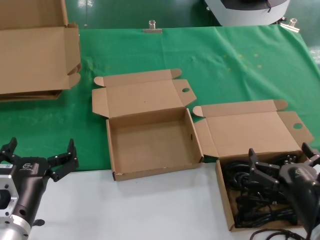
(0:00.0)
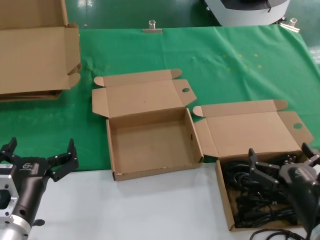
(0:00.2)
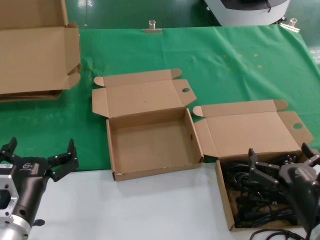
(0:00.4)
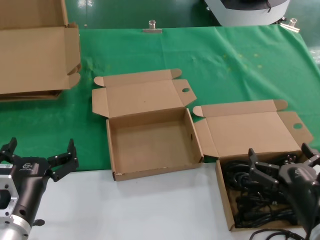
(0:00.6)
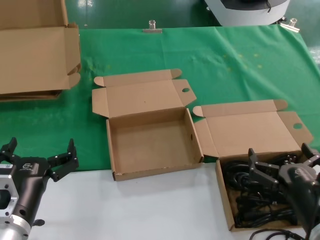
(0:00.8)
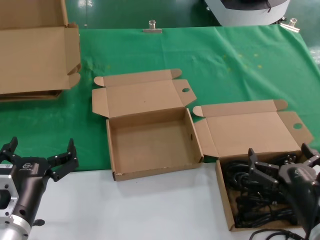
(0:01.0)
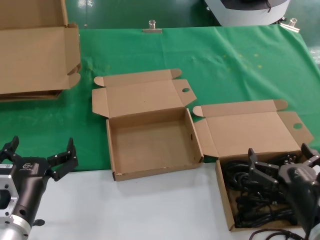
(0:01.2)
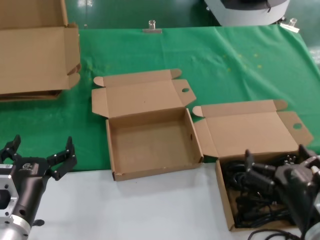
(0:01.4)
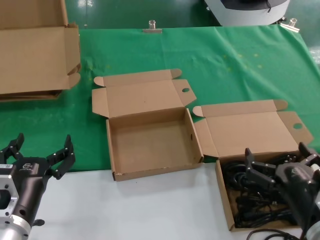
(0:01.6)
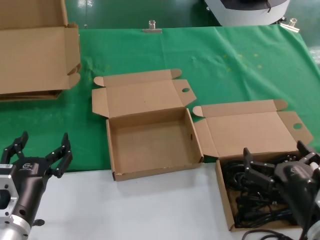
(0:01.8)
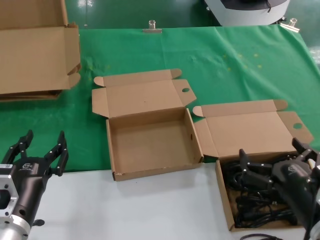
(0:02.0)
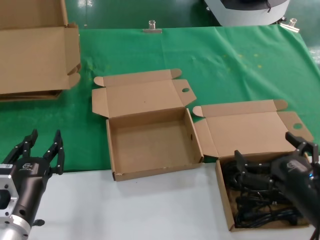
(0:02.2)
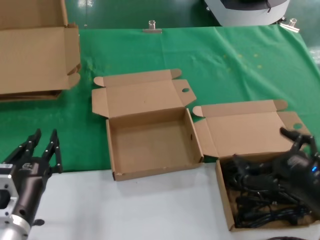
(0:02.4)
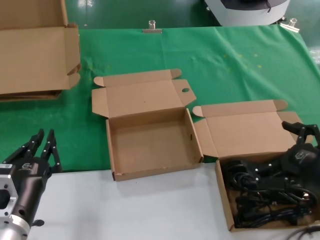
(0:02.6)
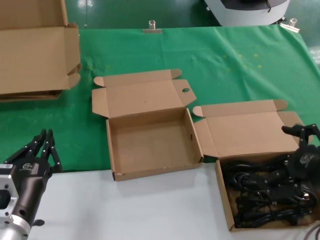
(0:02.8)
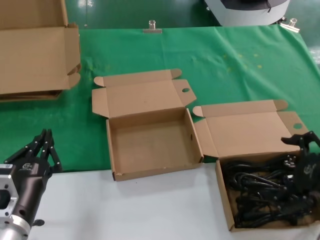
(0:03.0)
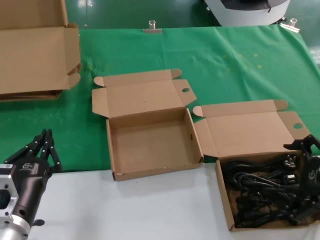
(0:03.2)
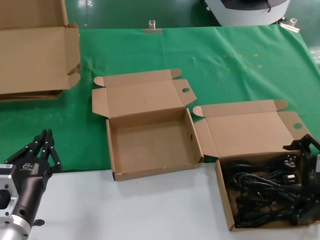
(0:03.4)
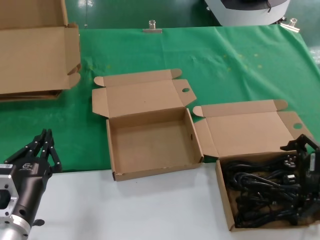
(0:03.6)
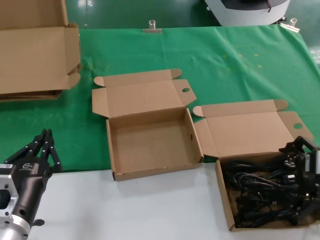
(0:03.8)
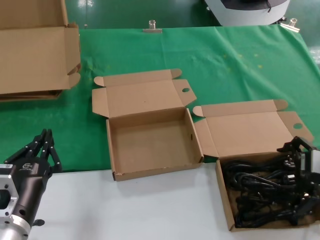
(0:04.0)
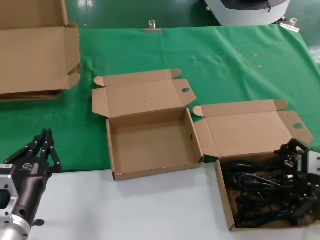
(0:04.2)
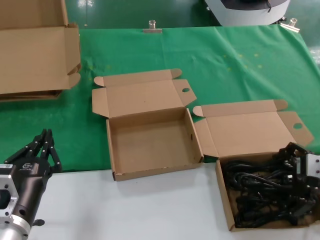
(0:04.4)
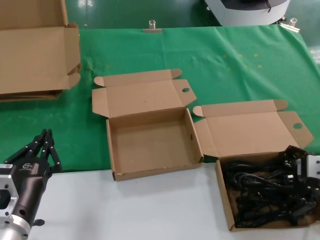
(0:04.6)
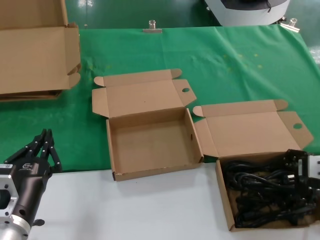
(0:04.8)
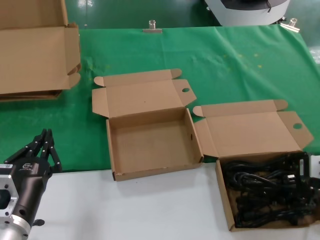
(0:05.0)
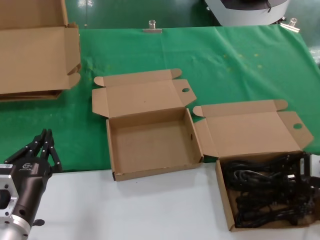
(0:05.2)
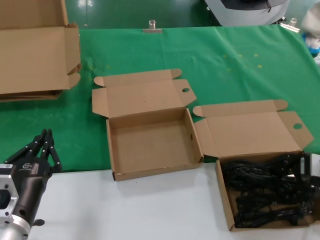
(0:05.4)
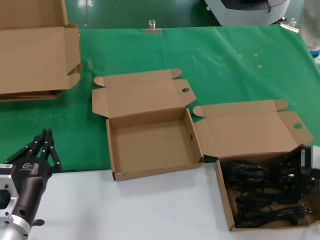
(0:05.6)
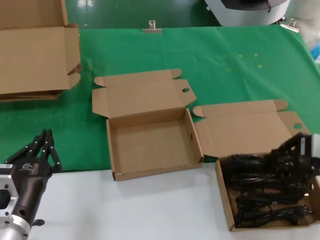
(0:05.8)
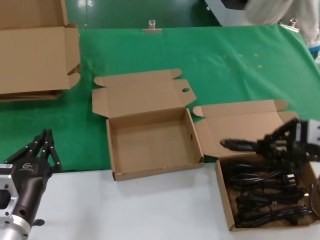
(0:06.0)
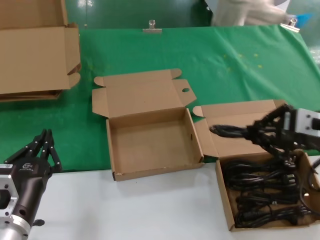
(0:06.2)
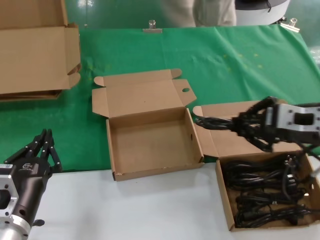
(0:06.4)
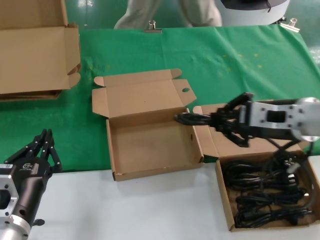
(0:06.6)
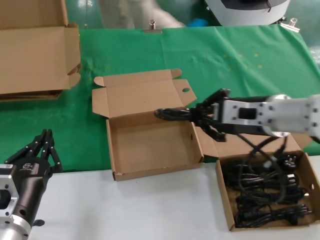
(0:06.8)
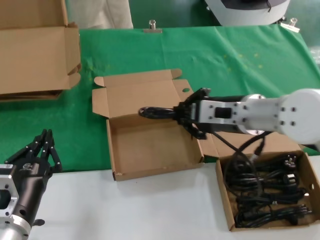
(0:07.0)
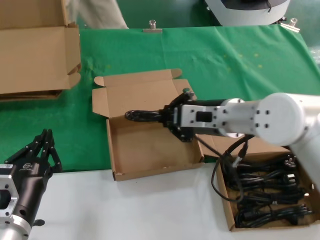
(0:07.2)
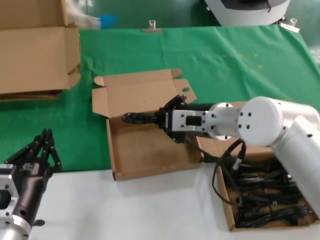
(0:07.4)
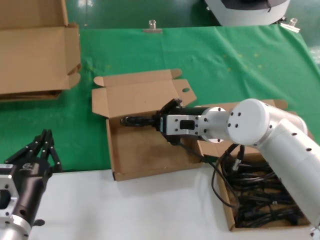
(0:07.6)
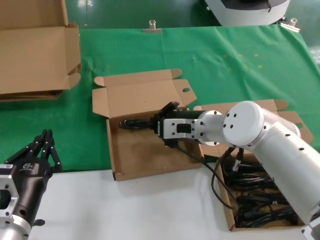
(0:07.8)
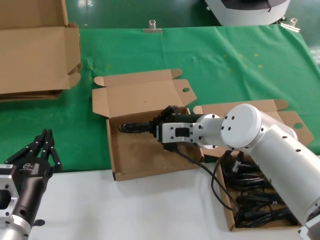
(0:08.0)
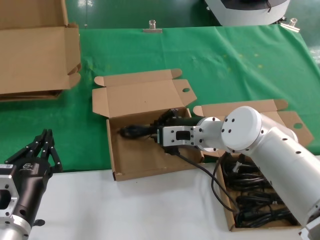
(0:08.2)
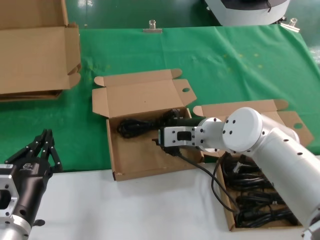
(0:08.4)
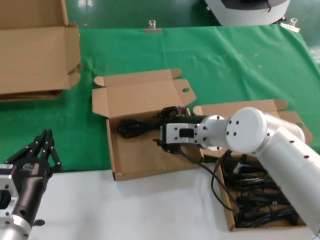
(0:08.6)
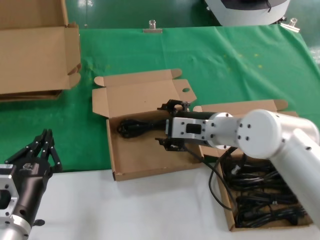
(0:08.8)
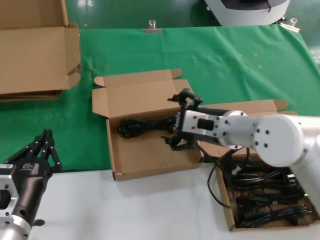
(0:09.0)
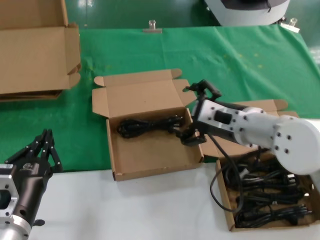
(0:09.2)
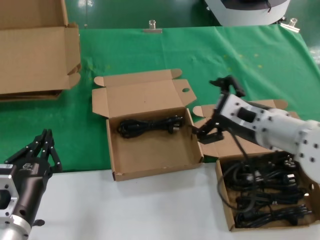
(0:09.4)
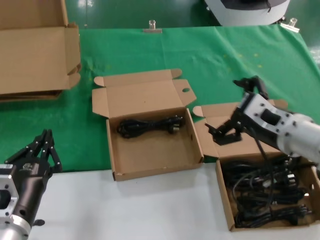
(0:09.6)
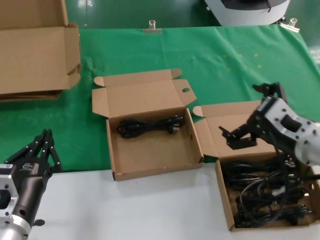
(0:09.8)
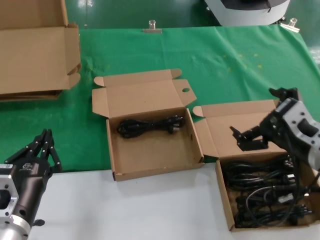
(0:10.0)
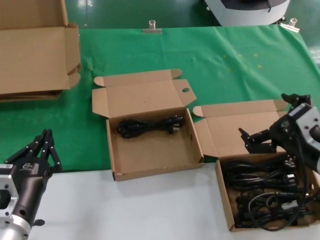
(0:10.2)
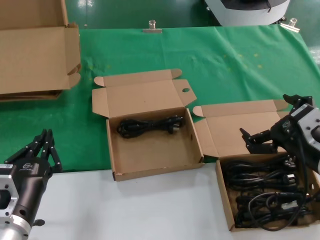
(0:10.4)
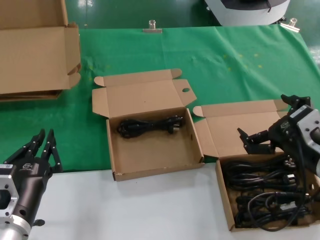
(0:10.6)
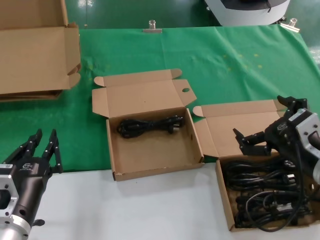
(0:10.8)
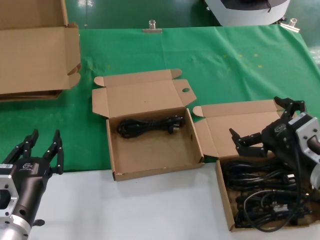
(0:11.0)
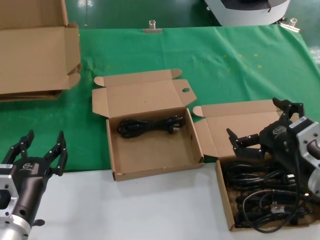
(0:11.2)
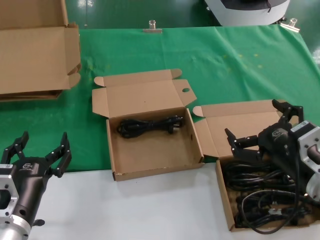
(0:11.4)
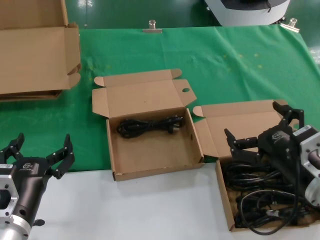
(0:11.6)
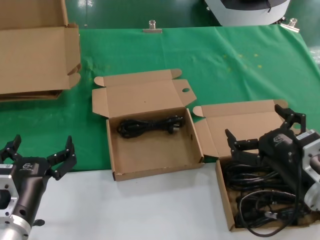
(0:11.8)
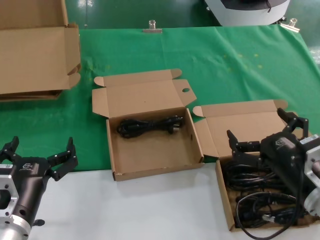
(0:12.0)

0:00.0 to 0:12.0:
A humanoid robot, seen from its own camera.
Task of the whole recording: take the parts from the box containing them and put them into an empty box.
Step, 0:00.0 to 0:05.2: Grasp the data cable.
Step, 0:05.4 to 0:08.4: Place the data cable in the another box.
0:00.0 to 0:01.6: The two hands keep their place.
0:01.6 to 0:03.0: The right hand moves upward and to the right, some 15 cm.
0:03.0 to 0:04.4: The right hand moves forward, roughly 10 cm.
0:04.4 to 0:06.0: The right hand heads upward, covering approximately 5 cm.
0:06.0 to 0:07.6: The right hand moves to the left and forward, some 25 cm.
0:07.6 to 0:09.0: The hands make only small movements.
0:09.0 to 0:10.4: The right hand travels to the right and backward by approximately 20 cm.
0:10.4 to 0:12.0: The right hand is displaced downward by some 5 cm.

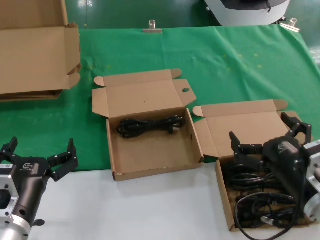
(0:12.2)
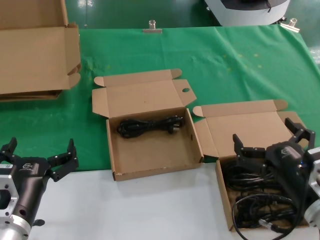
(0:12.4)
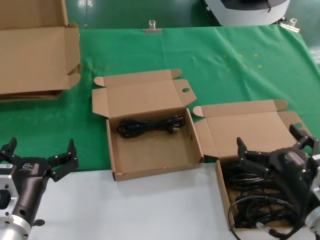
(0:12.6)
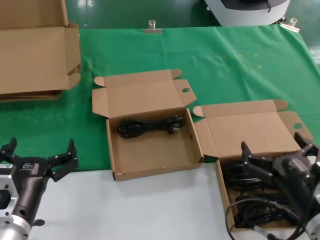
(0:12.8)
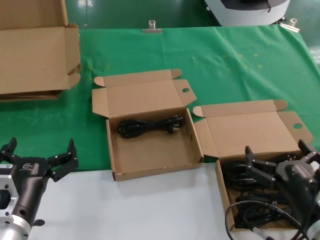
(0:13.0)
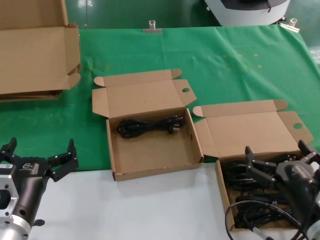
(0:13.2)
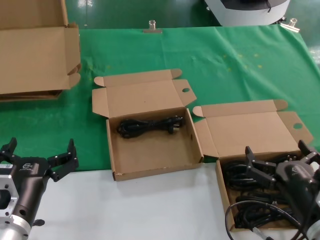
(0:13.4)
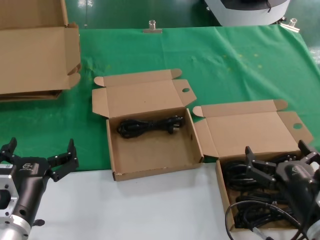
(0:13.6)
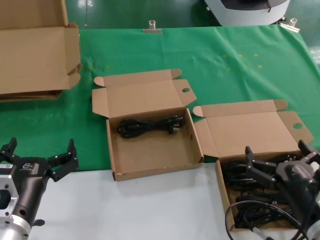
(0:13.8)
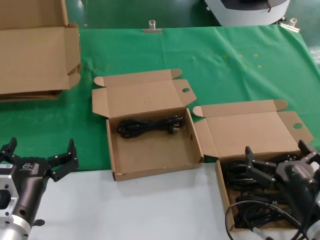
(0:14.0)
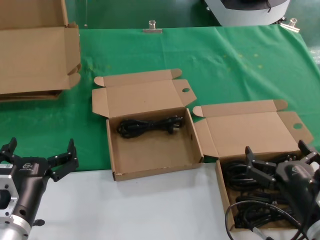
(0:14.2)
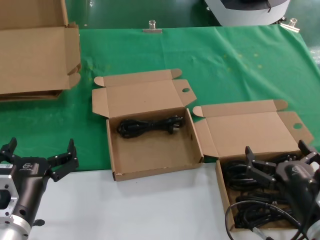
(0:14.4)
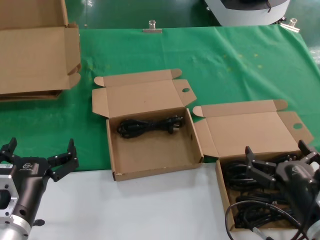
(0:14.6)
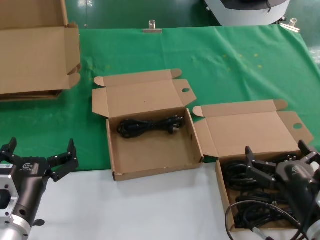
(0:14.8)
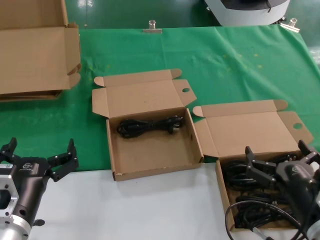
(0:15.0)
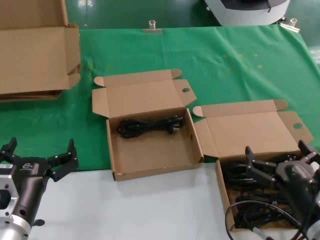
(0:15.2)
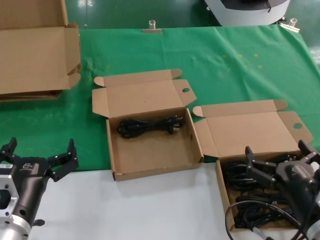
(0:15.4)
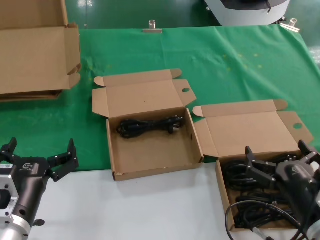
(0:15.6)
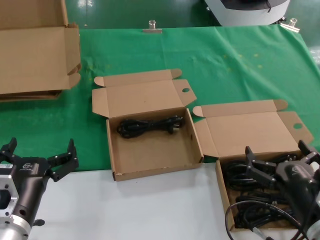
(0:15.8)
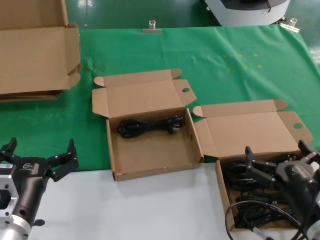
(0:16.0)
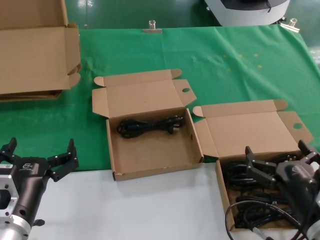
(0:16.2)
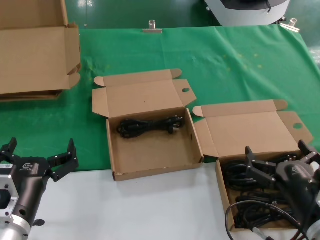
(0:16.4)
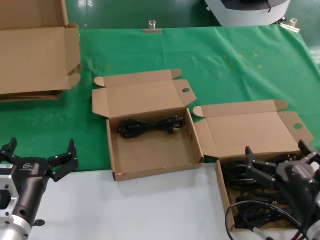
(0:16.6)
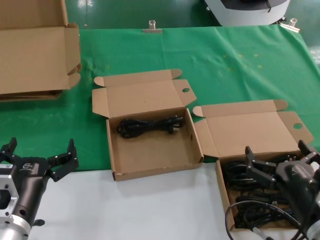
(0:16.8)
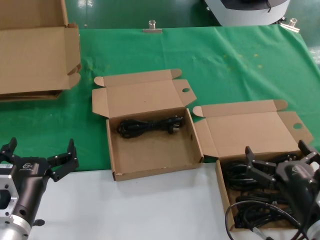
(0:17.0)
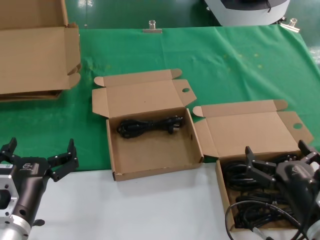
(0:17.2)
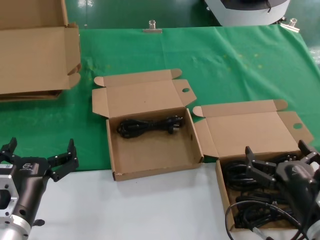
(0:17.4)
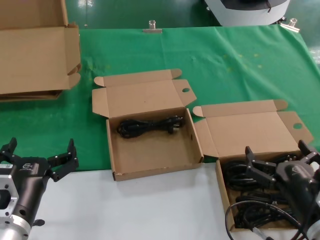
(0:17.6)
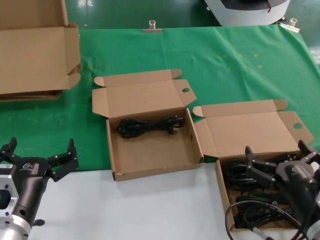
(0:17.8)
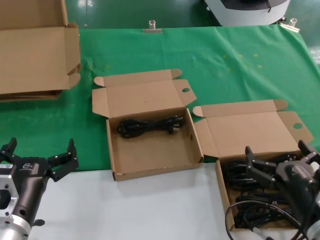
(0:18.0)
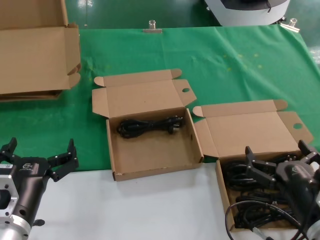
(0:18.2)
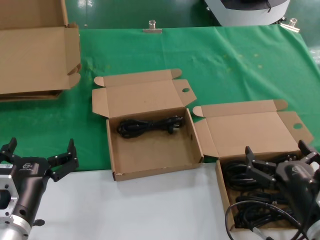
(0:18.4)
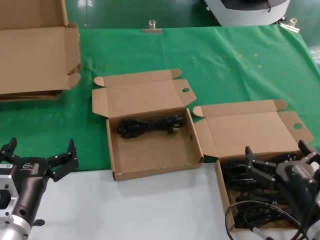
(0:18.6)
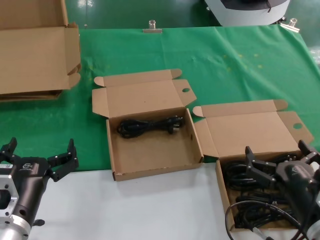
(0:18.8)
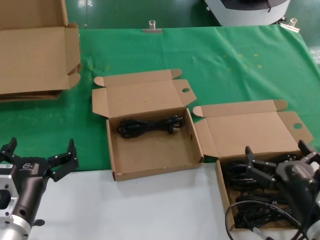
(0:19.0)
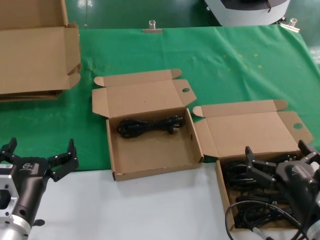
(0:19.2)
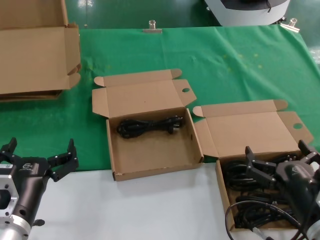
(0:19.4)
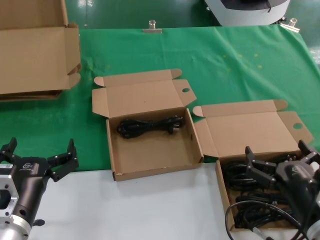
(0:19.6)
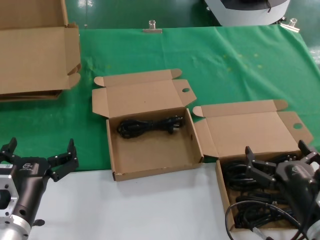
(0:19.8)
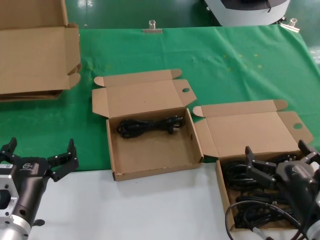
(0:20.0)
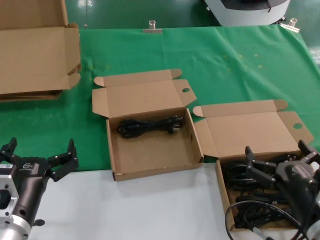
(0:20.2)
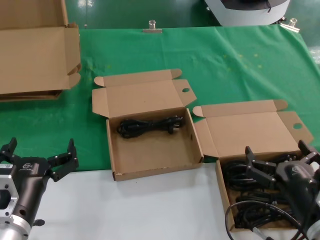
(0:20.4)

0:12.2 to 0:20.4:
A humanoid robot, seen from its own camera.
Task of the whole recording: take the parts from the box containing them and put them into an empty box.
0:12.2 to 0:13.8: The right hand shifts by some 5 cm.
0:13.8 to 0:20.4: Neither hand changes place.

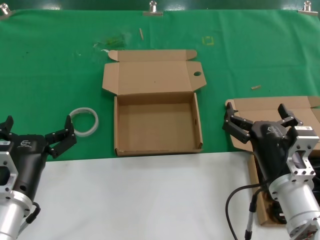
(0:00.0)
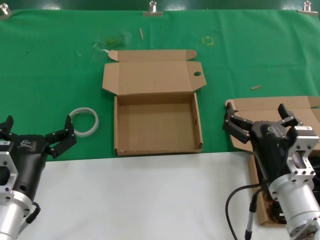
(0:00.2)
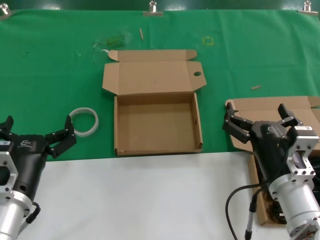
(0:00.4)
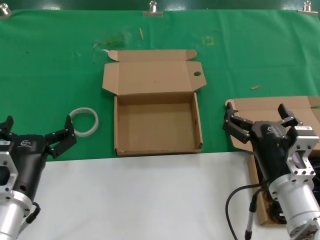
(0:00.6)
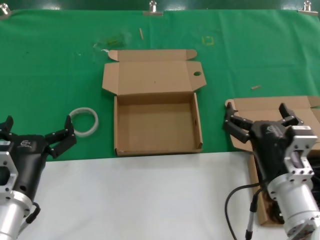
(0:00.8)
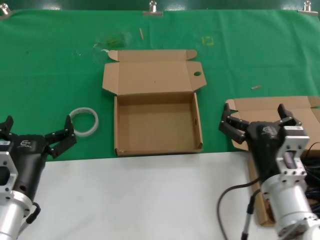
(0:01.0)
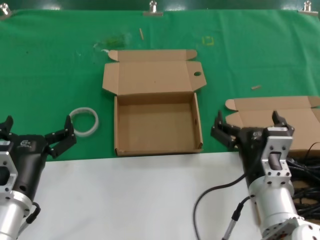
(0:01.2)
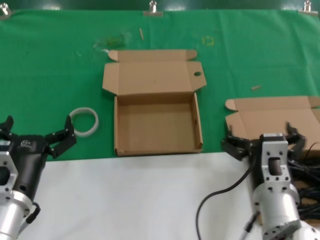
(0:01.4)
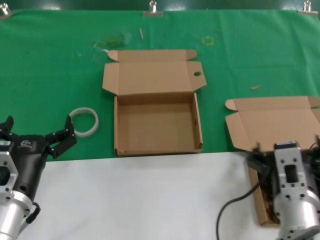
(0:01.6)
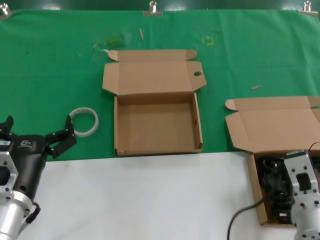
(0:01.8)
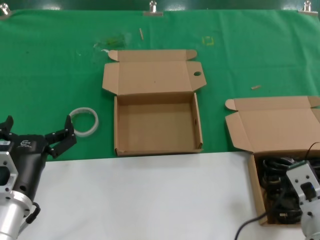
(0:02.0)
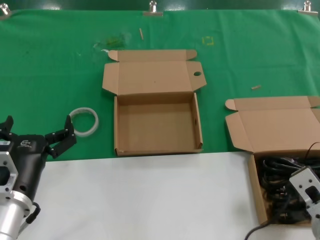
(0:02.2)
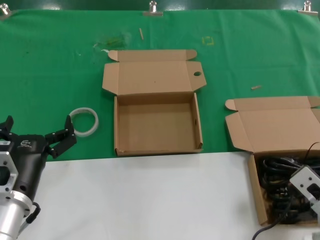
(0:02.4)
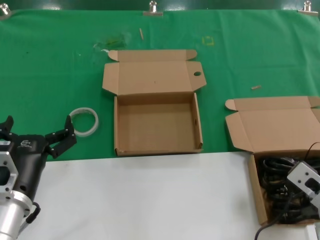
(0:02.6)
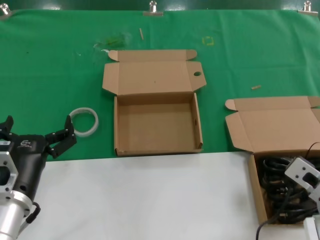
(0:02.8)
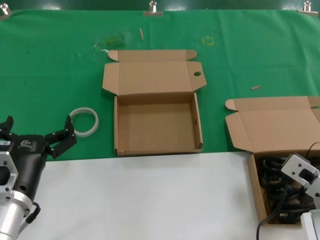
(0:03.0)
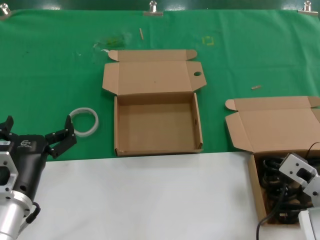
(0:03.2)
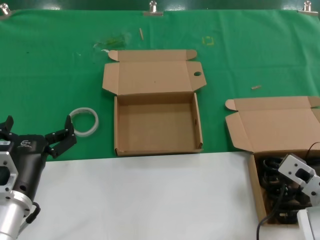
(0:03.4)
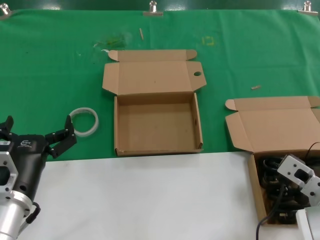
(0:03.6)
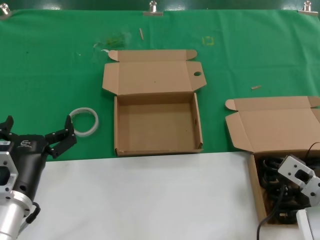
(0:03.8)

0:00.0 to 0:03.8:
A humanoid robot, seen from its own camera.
Task of the whole recording: take the parts from the box containing them and put them into an empty box.
0:00.0 to 0:01.2: The hands make only small movements.
0:01.2 to 0:02.6: The right hand heads to the right, covering roughly 10 cm.
0:02.6 to 0:03.8: The hands make only small movements.
